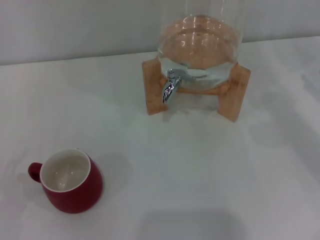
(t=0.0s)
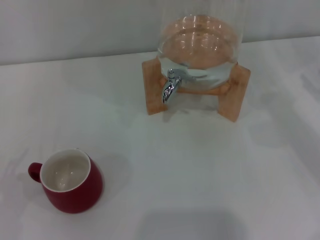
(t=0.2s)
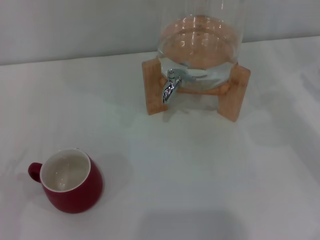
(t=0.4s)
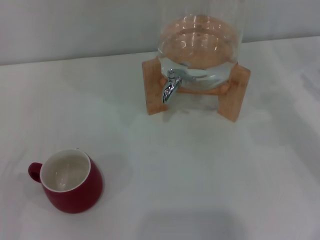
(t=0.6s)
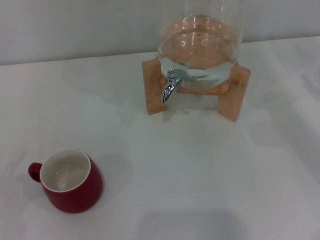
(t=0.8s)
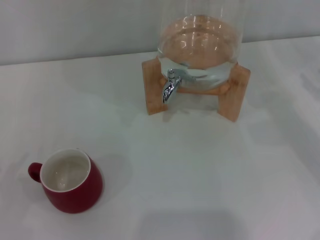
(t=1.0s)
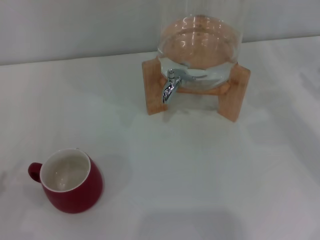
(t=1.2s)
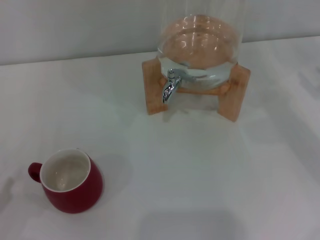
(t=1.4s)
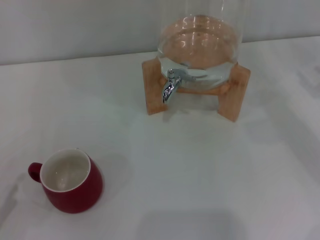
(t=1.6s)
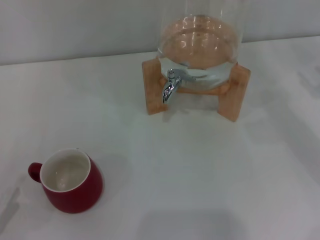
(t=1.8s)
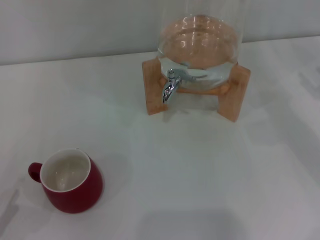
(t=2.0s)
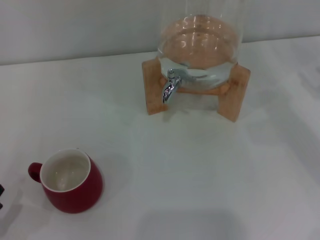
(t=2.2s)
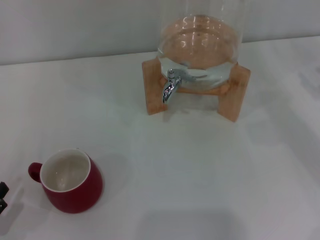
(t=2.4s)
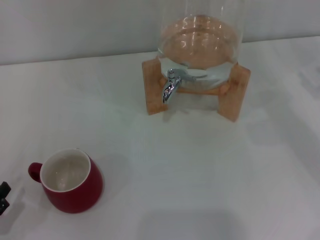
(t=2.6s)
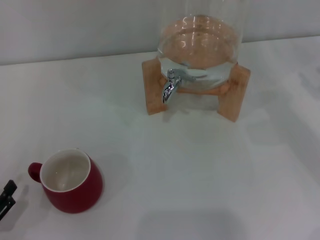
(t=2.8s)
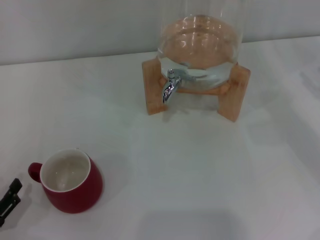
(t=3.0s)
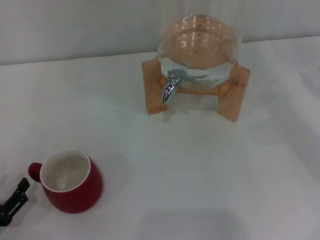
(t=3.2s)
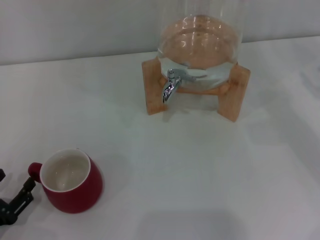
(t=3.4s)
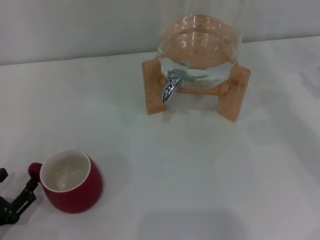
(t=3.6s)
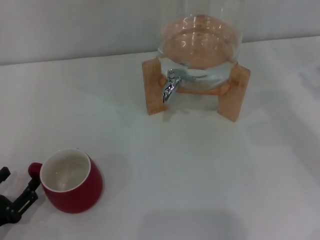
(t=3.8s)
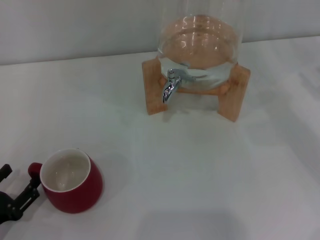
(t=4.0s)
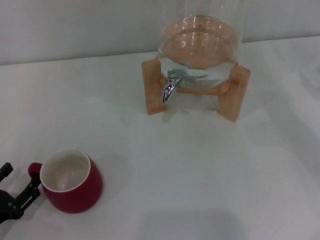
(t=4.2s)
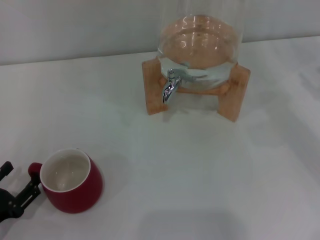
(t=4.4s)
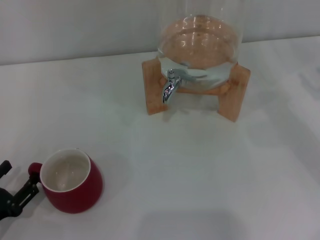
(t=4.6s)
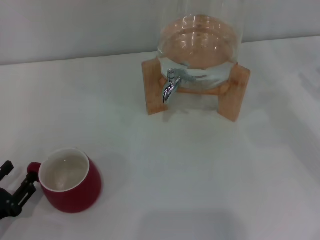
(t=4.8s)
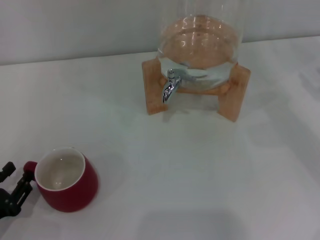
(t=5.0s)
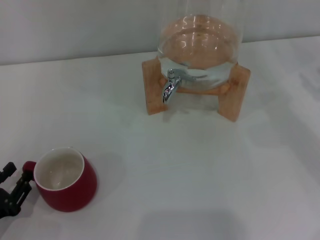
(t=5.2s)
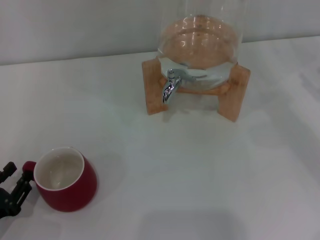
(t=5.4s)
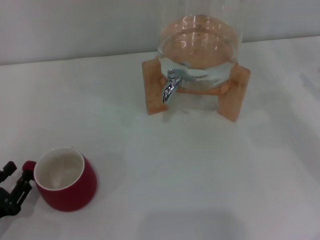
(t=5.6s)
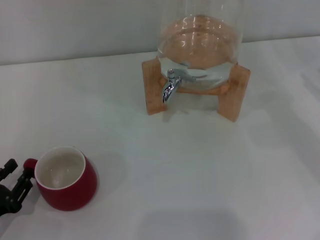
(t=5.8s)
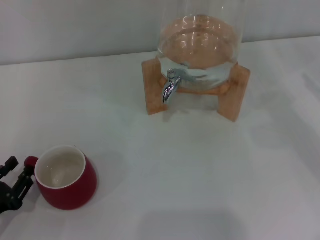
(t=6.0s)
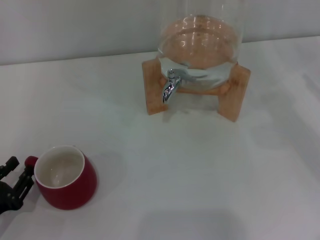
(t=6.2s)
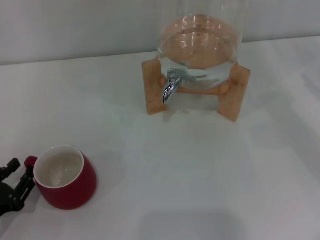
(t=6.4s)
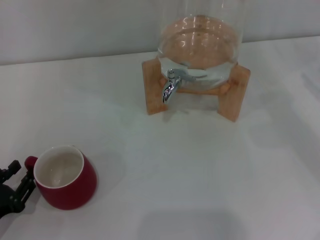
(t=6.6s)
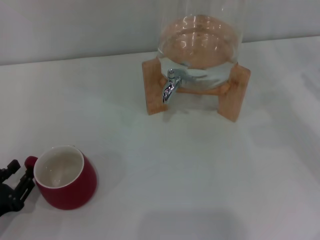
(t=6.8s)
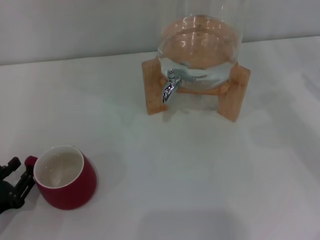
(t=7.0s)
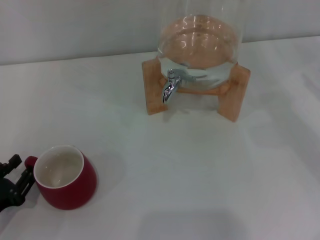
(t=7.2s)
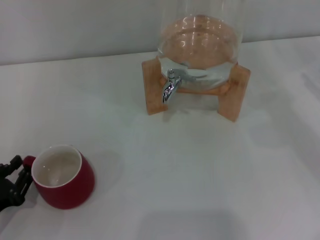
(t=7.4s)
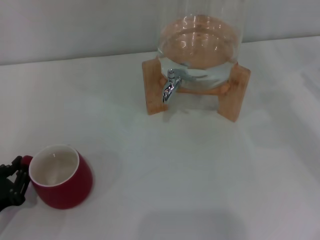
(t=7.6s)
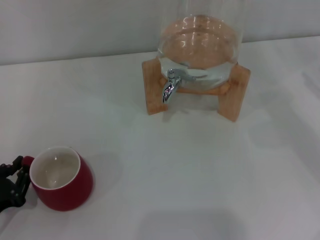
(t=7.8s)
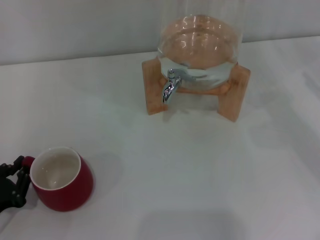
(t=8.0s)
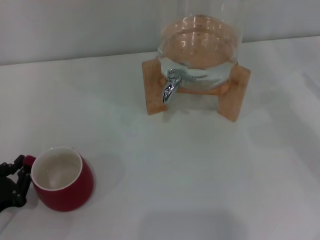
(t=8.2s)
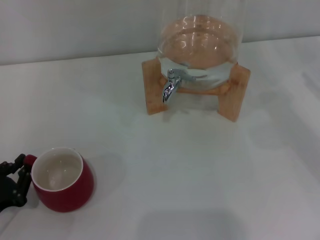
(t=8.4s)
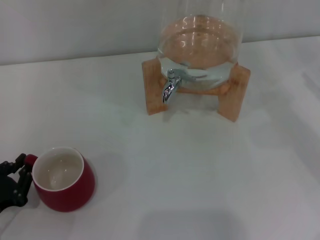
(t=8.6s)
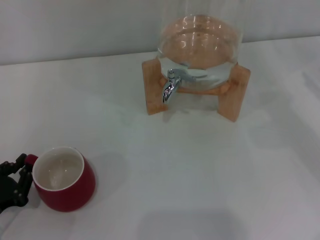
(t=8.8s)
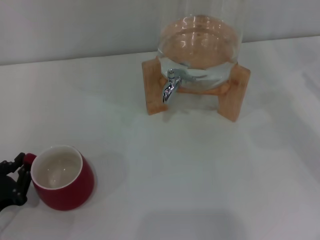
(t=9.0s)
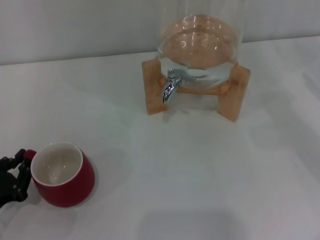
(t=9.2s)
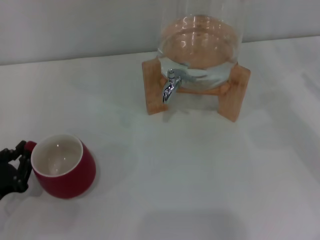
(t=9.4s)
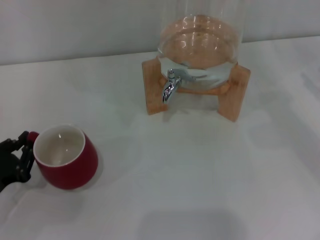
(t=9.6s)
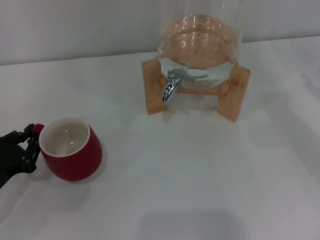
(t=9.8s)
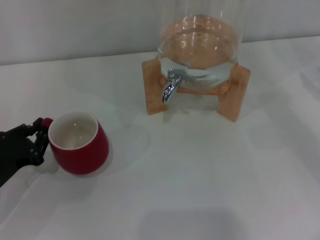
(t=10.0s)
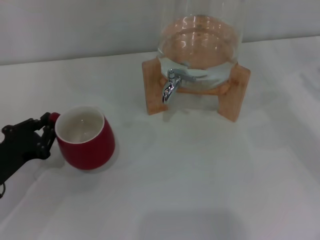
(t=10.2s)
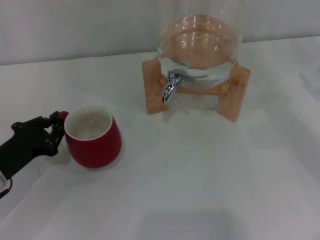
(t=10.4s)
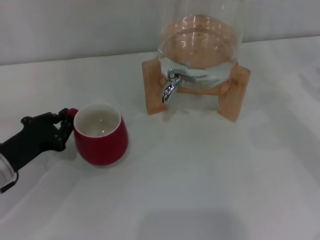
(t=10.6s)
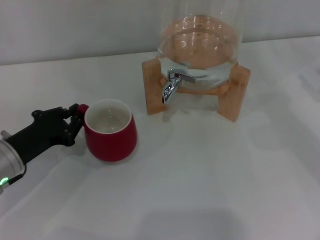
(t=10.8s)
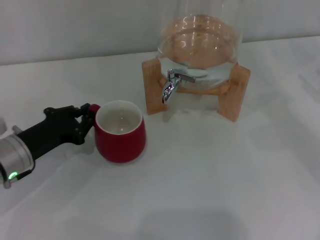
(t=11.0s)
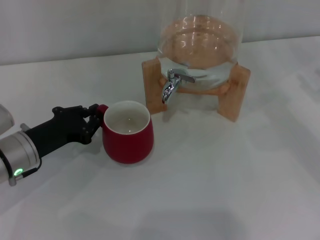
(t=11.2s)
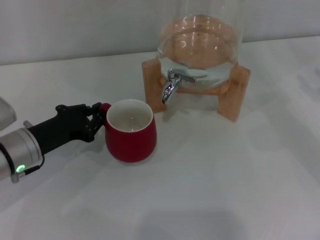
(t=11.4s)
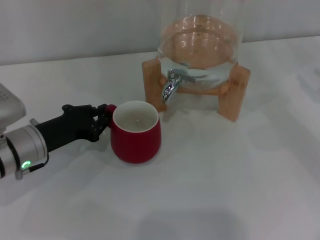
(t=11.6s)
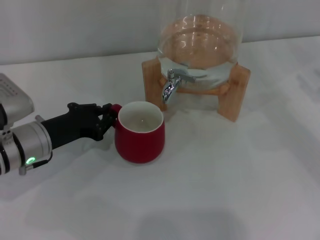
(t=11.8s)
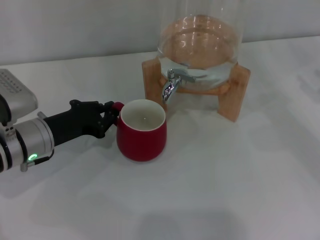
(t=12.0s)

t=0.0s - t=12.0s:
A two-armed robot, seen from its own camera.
Task of the whole recording: the left gripper pick up the red cup and place it horizontally under the faucet, the right gripper turn on the faucet to fill the cup, and then turn off the faucet.
t=1.6s - t=3.0s: The grippers make only small movements.
t=3.0s - t=4.4s: The grippers stay close to where they were, moving slightly.
t=4.4s - t=6.0s: The left gripper closes up.
t=6.0s - t=7.6s: The two grippers keep their place.
t=7.6s - t=9.0s: The left gripper closes up.
t=9.0s - t=10.4s: The left gripper goes roughly 10 cm forward.
t=10.4s - t=12.0s: The left gripper shifts approximately 10 cm to the right and forward.

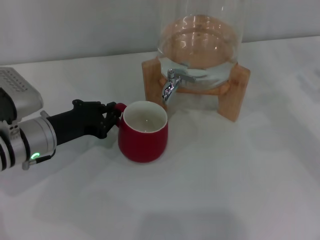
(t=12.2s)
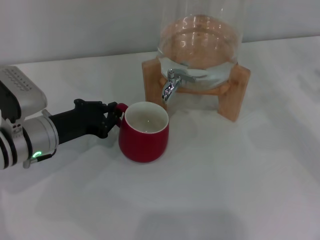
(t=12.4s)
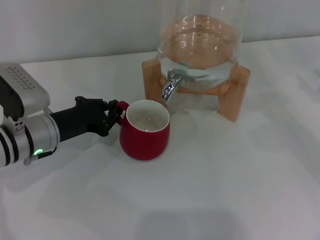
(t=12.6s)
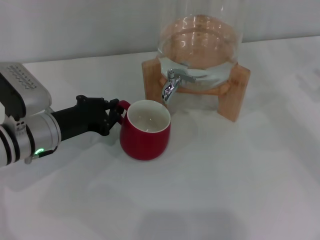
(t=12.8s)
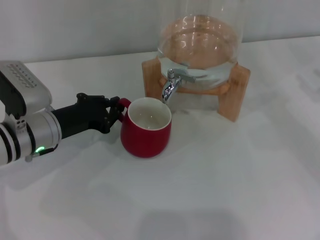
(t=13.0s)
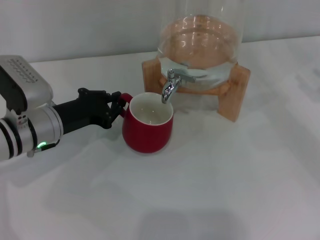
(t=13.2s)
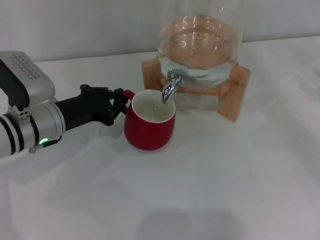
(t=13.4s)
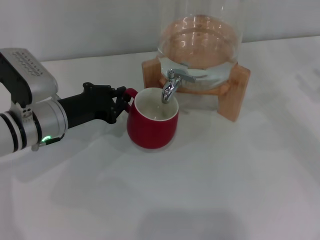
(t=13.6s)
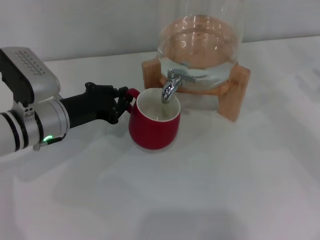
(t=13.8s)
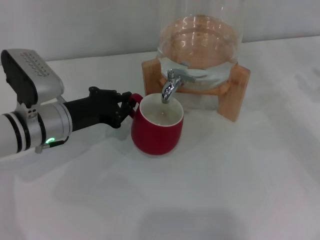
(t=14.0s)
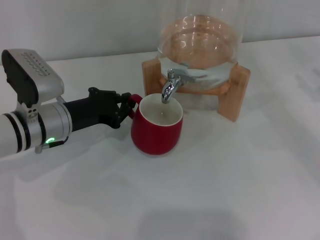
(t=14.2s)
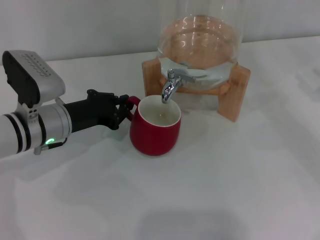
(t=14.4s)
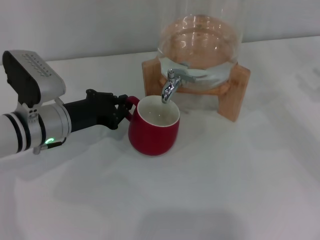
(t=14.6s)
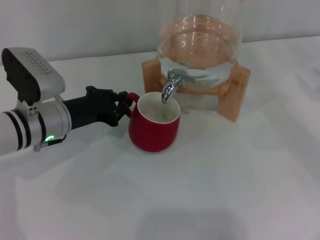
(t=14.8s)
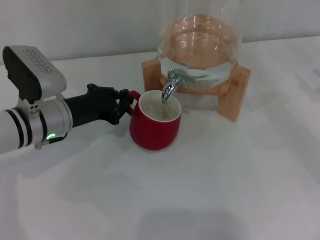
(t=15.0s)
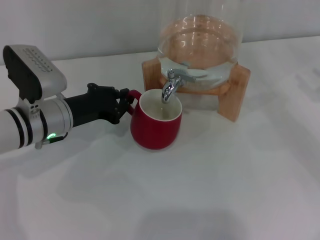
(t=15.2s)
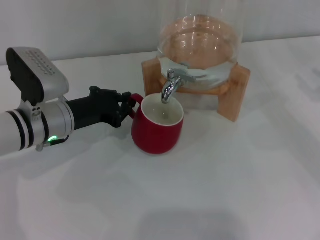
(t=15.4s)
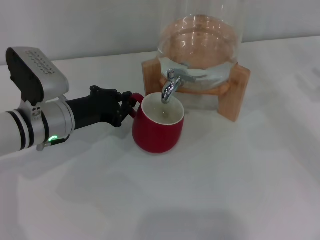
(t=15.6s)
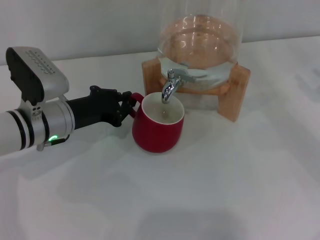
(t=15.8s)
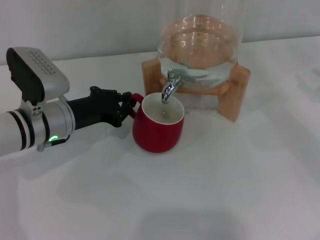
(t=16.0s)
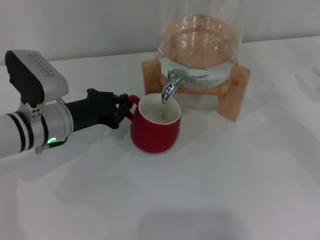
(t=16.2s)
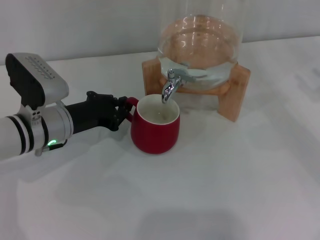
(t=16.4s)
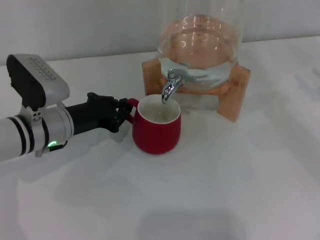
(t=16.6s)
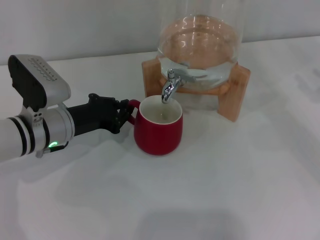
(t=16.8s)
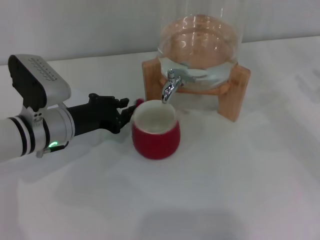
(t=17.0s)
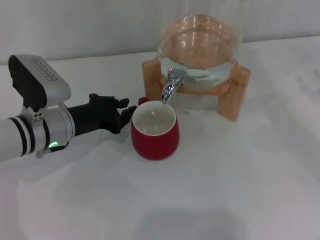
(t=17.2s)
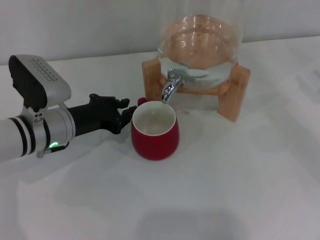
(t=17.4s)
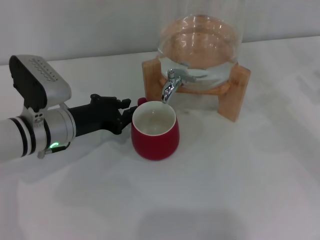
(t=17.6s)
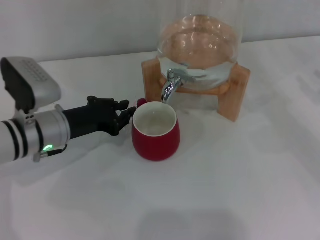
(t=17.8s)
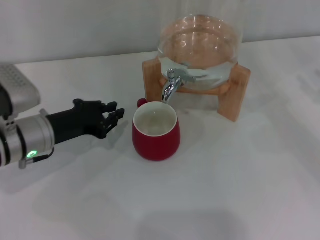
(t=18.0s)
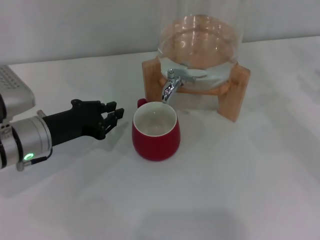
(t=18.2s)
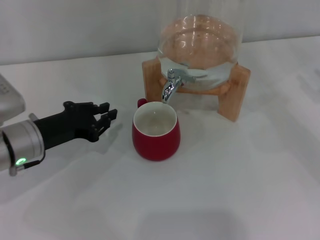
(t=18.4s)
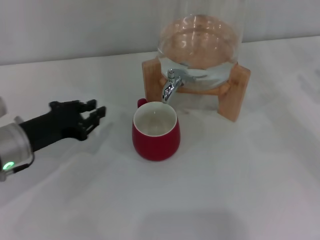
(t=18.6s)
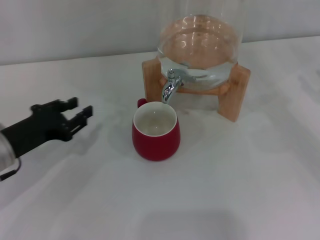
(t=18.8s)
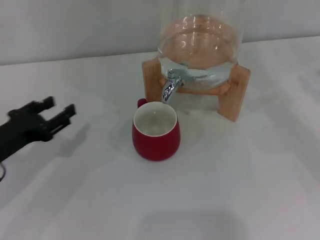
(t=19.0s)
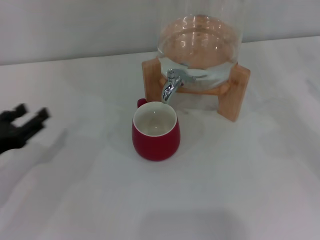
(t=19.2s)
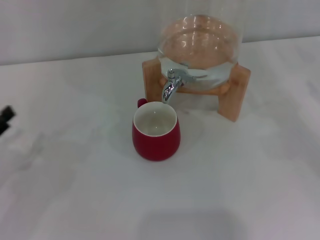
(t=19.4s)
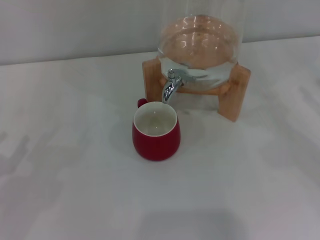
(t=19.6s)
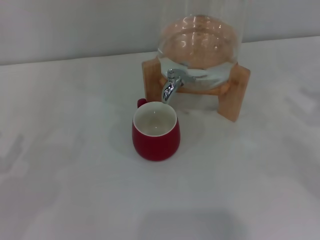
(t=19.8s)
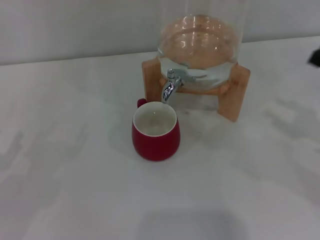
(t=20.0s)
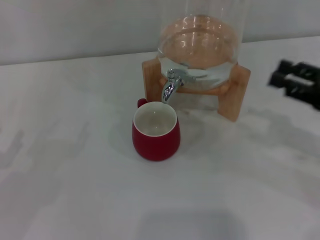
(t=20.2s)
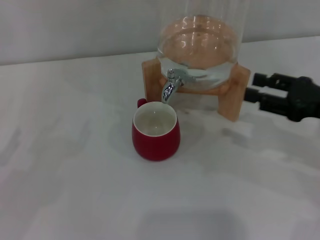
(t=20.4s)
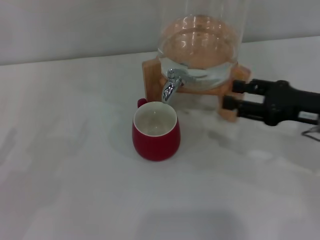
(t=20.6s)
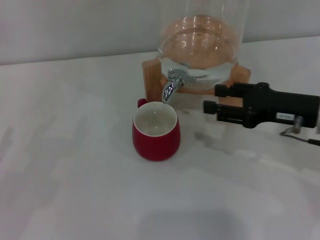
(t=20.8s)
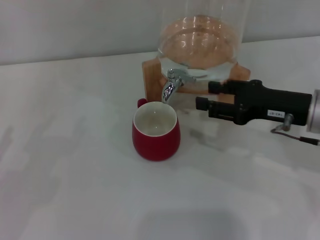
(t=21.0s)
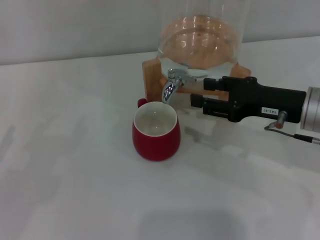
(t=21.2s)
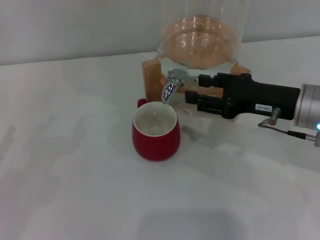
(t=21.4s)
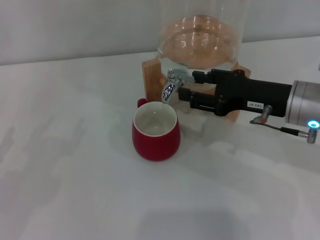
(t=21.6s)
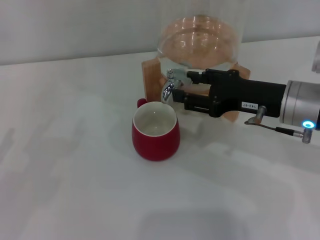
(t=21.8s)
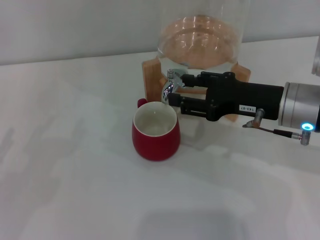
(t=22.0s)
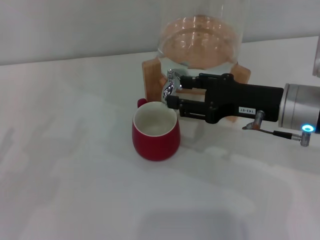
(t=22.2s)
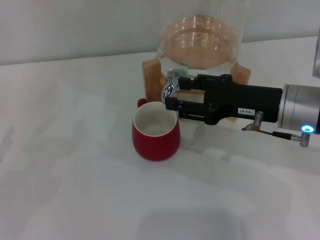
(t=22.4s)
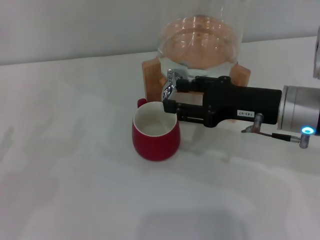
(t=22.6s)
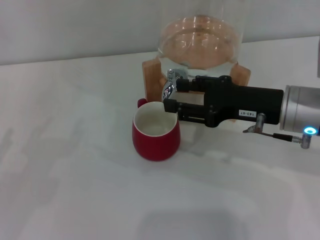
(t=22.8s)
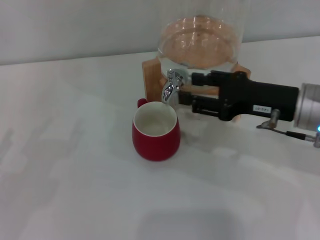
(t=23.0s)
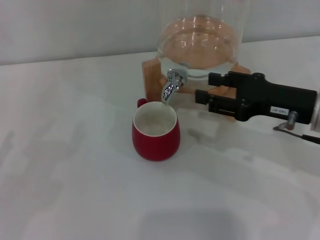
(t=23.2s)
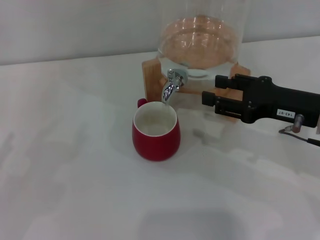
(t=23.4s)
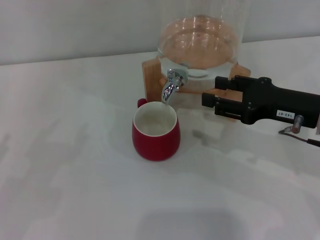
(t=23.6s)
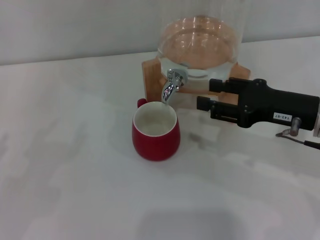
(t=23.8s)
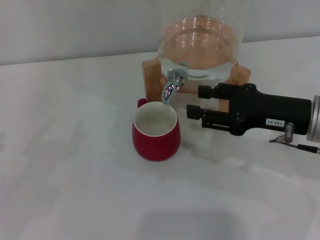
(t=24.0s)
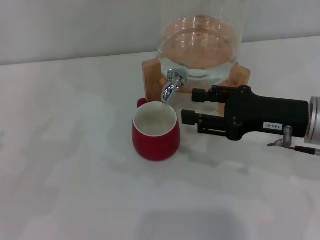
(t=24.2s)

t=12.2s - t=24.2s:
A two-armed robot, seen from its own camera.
Task of the whole recording: the left gripper pick up the red cup and place it horizontally under the faucet, the right gripper turn on the faucet to fill the cup, and then turn off the faucet.
Step, t=12.2s - t=17.8s: Move the cup beneath the water dispenser nozzle with the left gripper.
Step, t=18.0s - t=22.8s: Open the dispenser valve and fill the cup with water with the right gripper.
t=12.2s - t=13.8s: The grippers stay close to where they were, moving slightly.
t=13.8s - t=15.2s: Both grippers stay about where they are.
t=15.2s - t=16.6s: Both grippers stay about where they are.
t=16.6s - t=18.2s: The grippers make only small movements.
t=18.2s - t=19.8s: The left gripper moves to the left and backward, some 20 cm, and opens.
t=19.8s - t=21.2s: The right gripper is displaced to the left by some 15 cm.
t=21.2s - t=24.2s: The grippers make only small movements.
